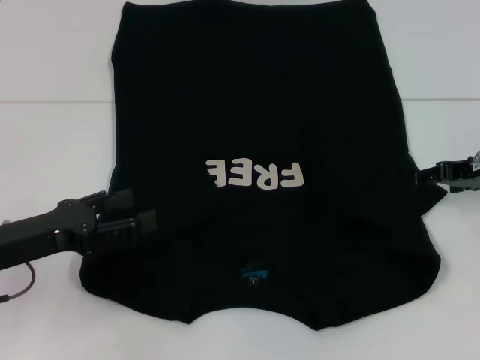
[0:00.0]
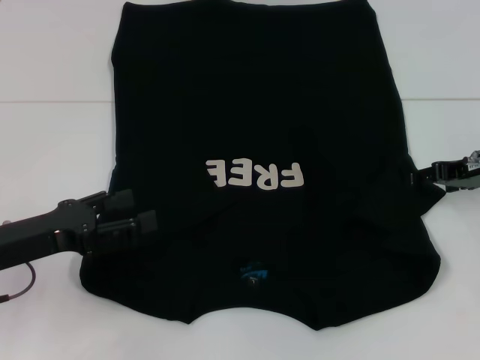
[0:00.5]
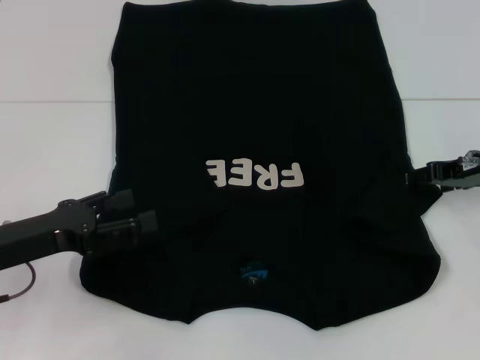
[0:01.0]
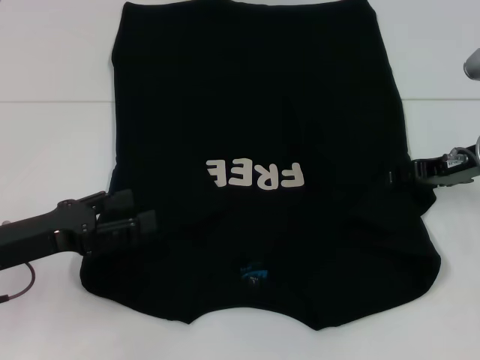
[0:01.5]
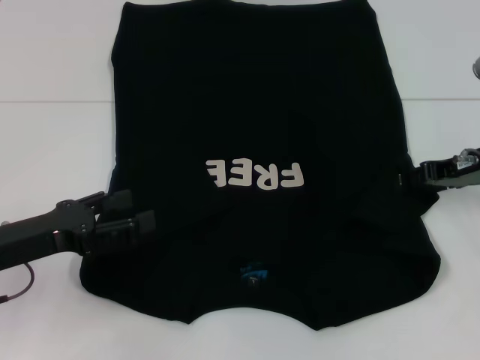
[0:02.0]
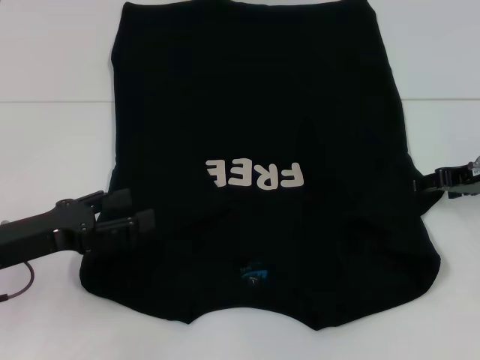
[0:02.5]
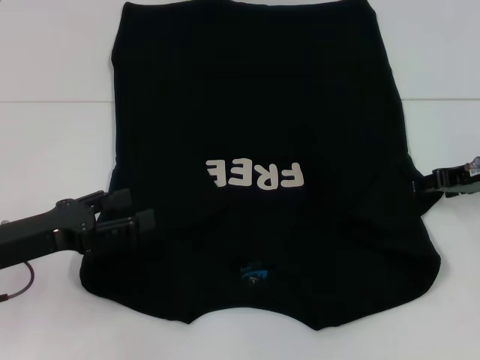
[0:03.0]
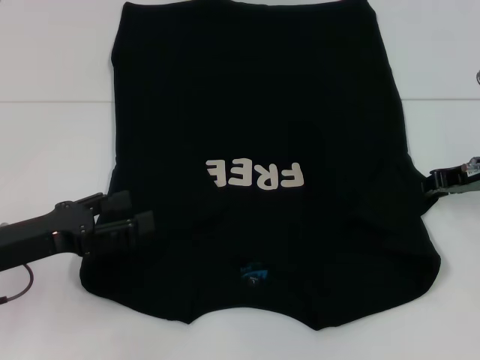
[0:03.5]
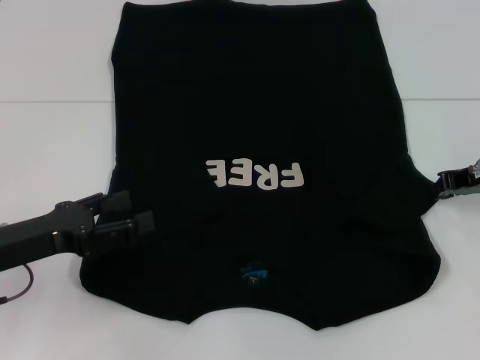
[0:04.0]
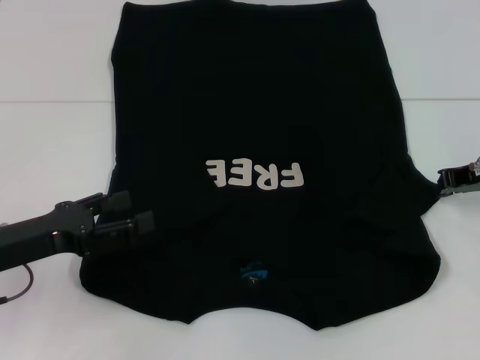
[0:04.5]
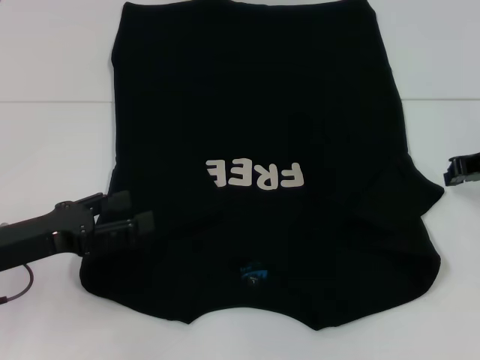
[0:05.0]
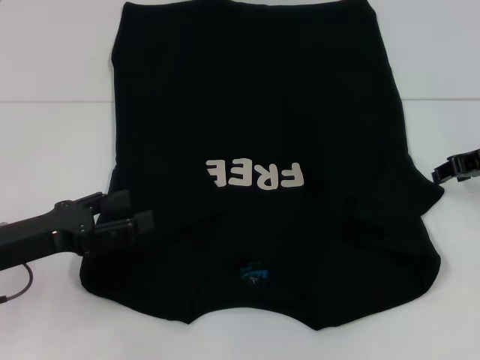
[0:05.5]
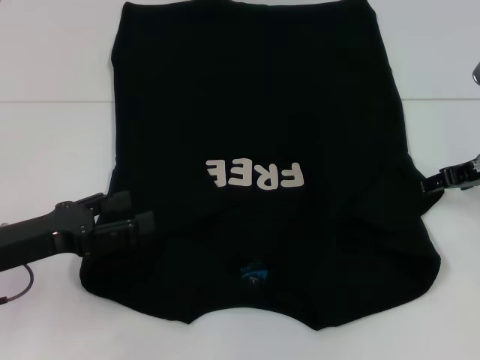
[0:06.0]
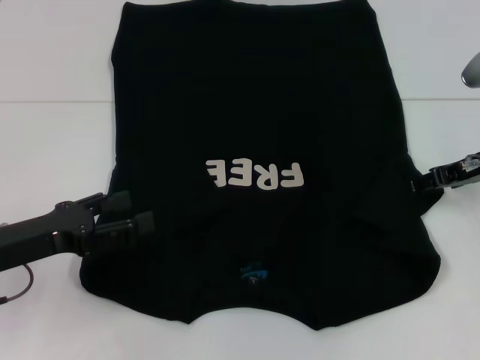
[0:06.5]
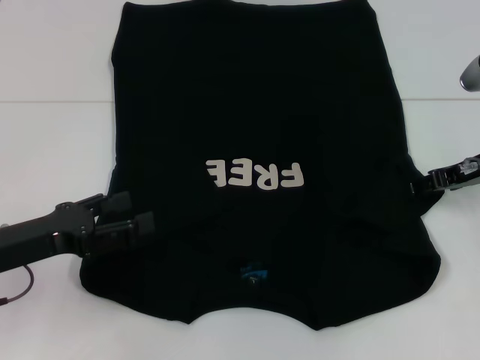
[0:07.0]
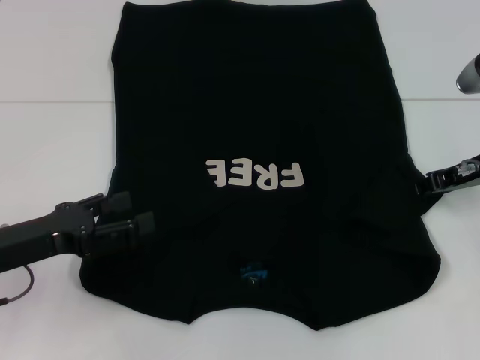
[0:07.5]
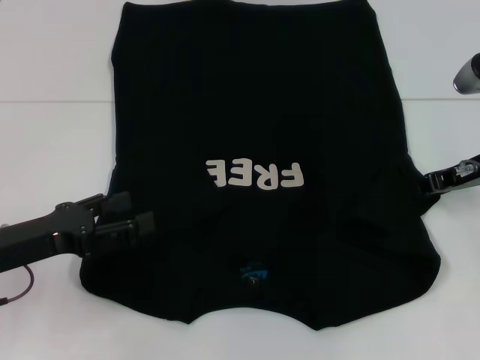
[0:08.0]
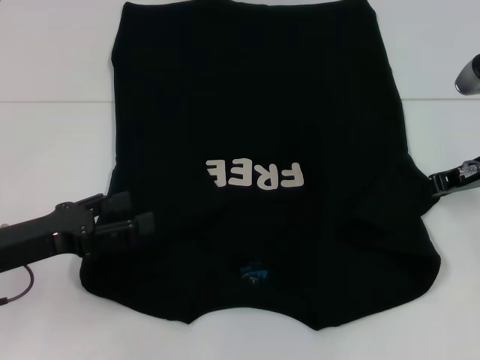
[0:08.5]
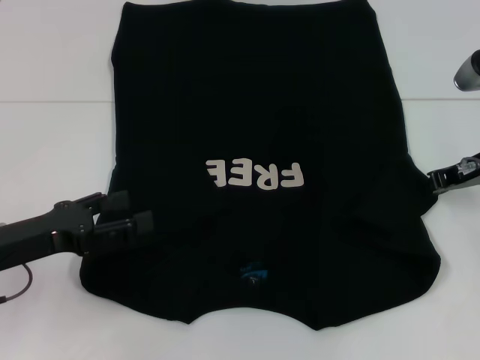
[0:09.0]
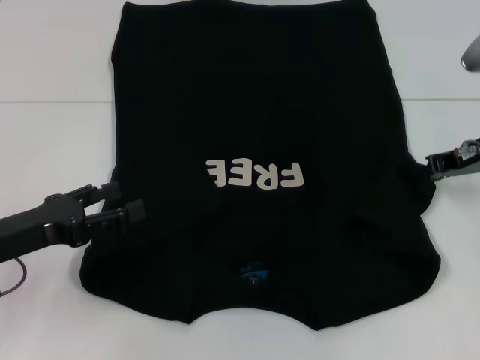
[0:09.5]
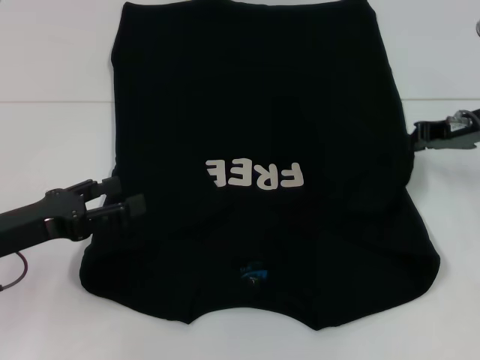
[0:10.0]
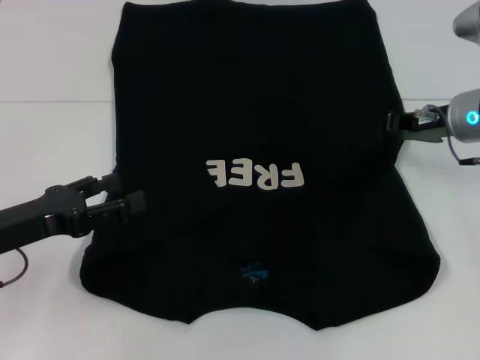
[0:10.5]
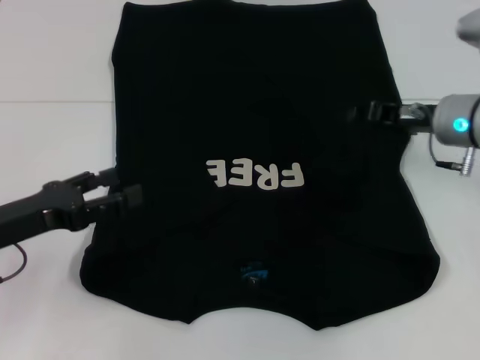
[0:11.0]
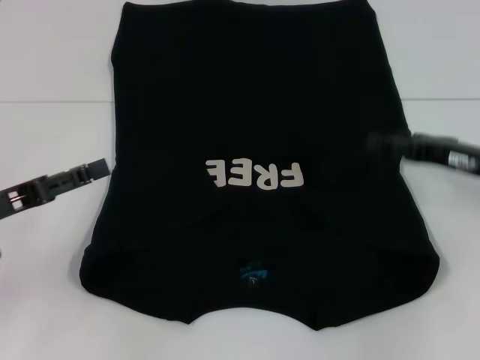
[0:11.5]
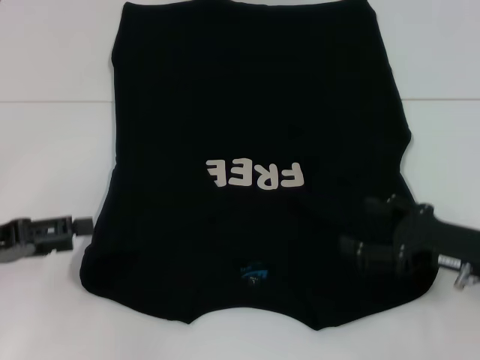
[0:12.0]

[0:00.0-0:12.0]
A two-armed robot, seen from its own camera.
Step, 0:00.0 to 0:12.0: Fold the bottom right sleeve with your right hand.
0:00.0 to 0:02.0: The grippers stay close to where they were, moving slightly.
0:02.0 to 0:04.0: The right gripper closes.
0:04.0 to 0:06.0: The right gripper opens.
0:06.0 to 0:08.0: The right gripper closes up.
0:08.0 to 0:10.0: The right gripper closes up.
0:10.0 to 0:12.0: The right gripper heads backward and downward, covering approximately 15 cm, and opens up, while the left gripper is displaced to the left by about 5 cm.

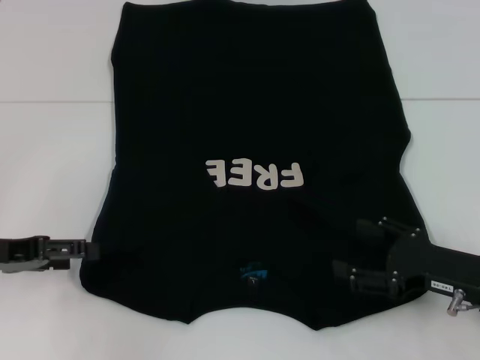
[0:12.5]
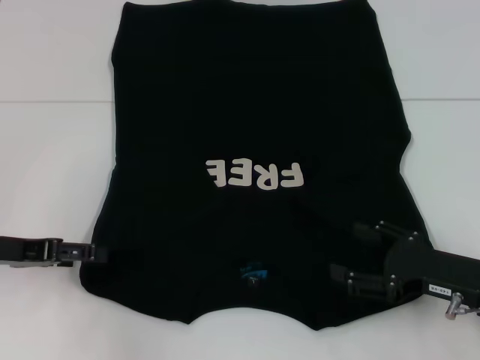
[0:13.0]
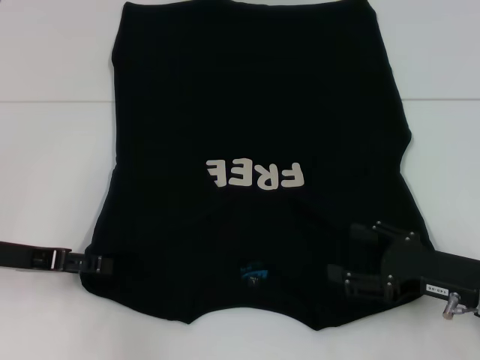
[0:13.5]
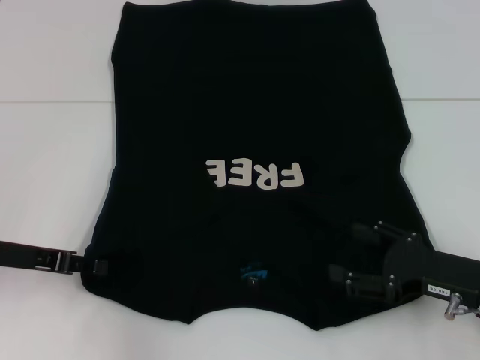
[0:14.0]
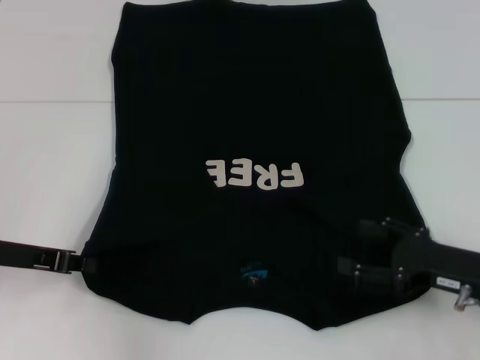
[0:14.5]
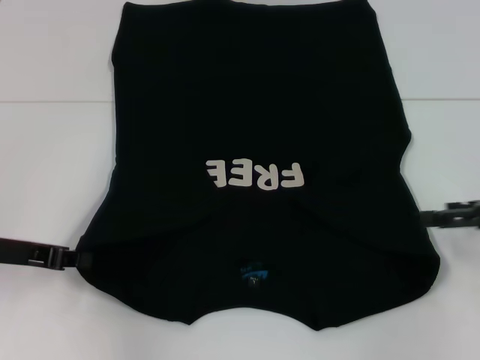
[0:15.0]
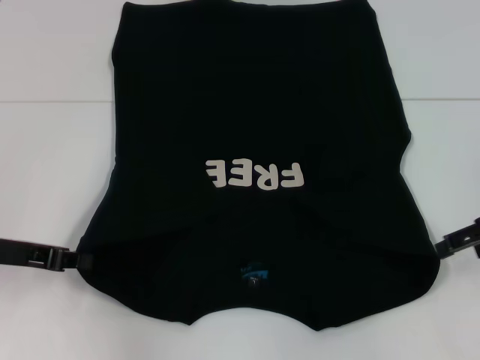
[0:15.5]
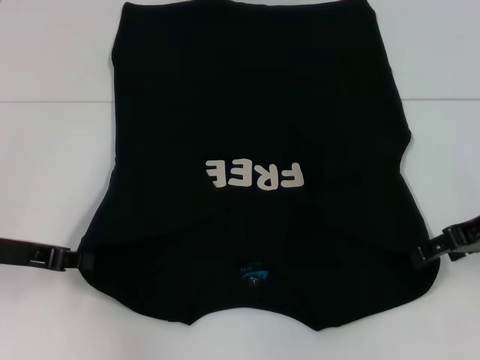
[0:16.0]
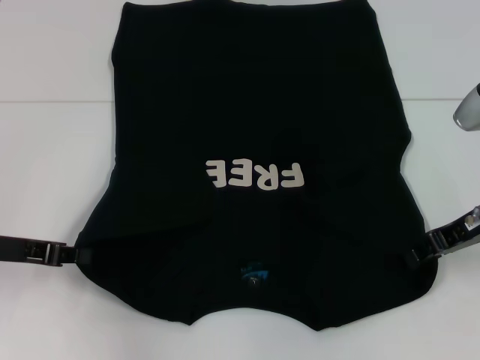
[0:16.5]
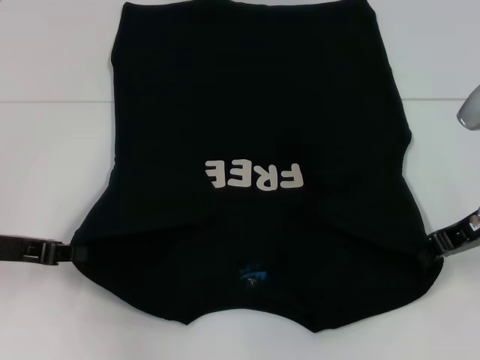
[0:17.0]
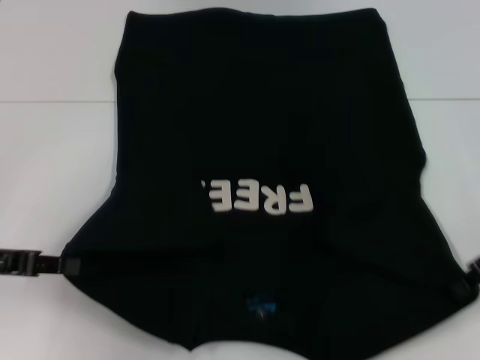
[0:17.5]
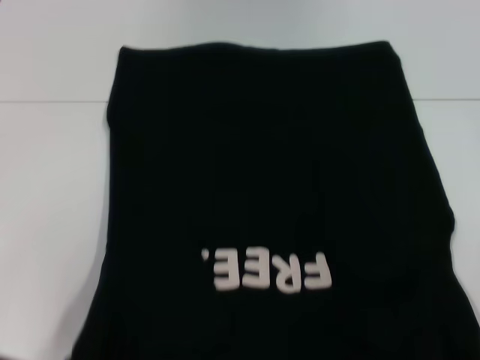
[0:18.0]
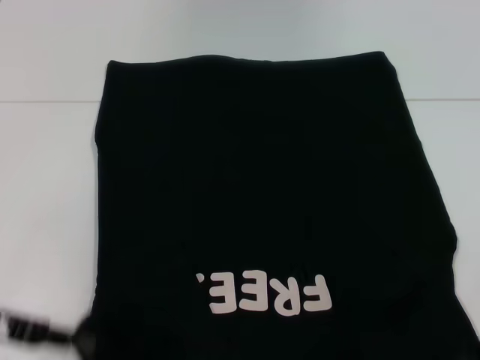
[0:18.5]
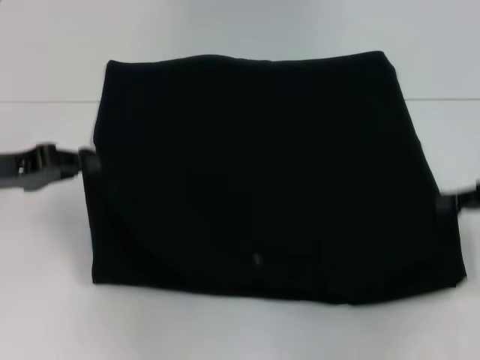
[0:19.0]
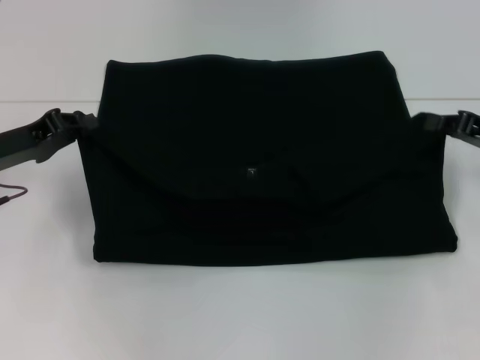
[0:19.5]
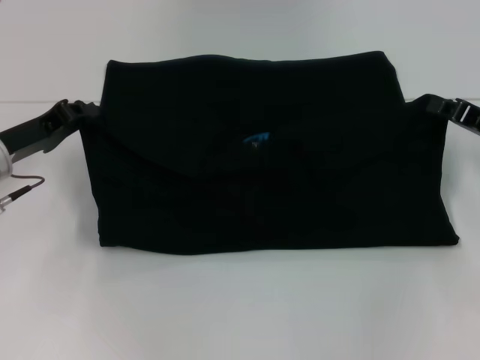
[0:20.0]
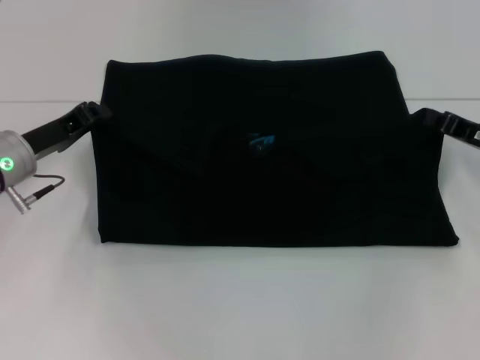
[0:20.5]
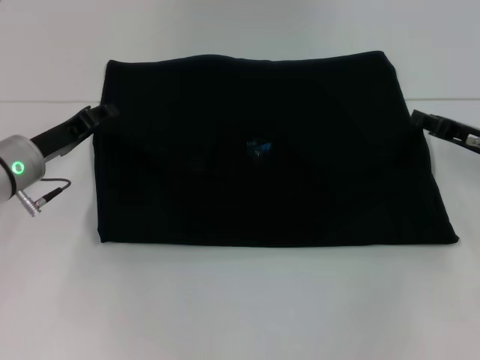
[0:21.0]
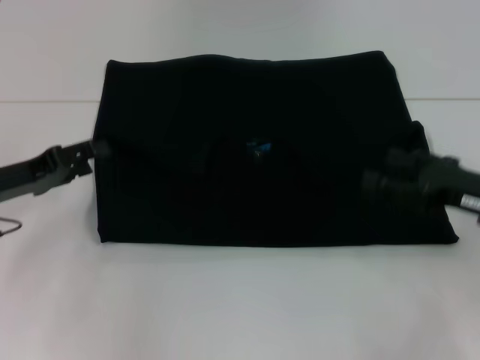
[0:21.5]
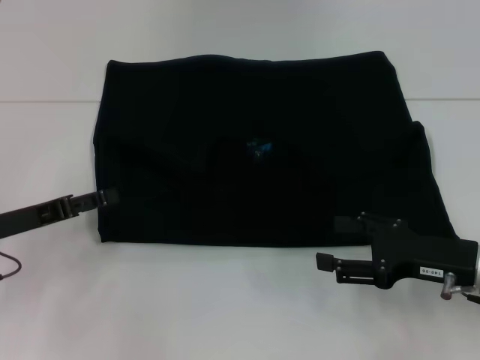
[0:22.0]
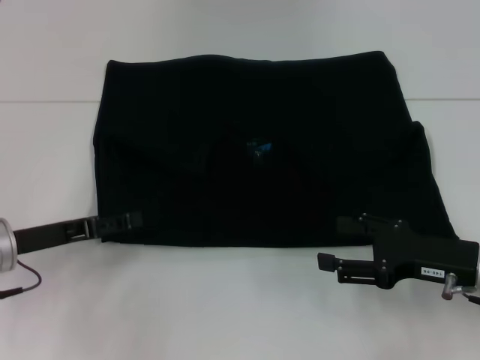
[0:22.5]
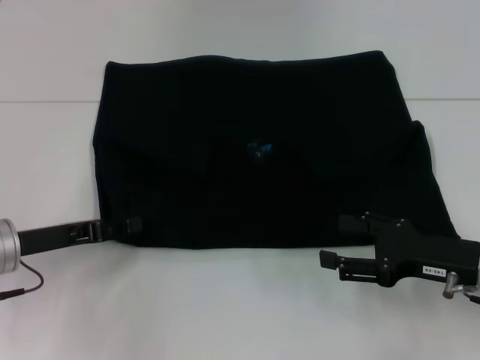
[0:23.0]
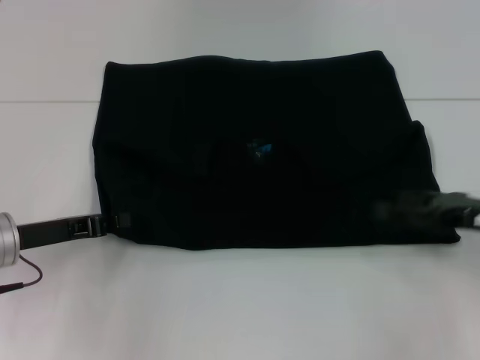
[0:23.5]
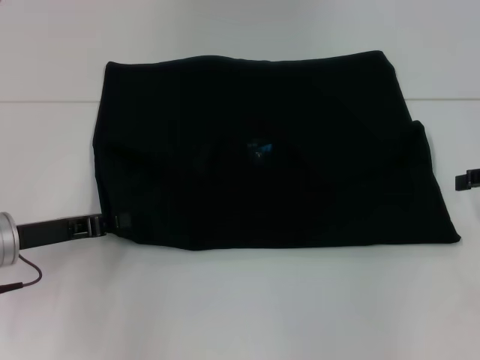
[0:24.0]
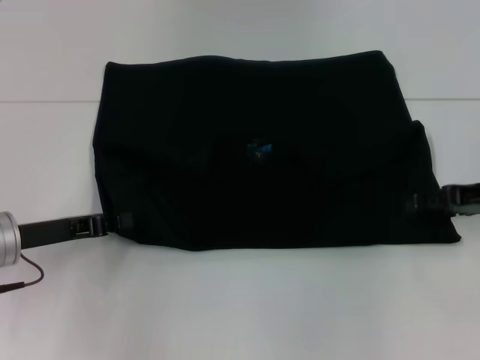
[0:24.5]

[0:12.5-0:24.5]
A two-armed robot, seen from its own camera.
Step, 0:12.5 to 0:15.5: Grab the bottom left corner with your left hand.
Step, 0:16.0 to 0:17.0: Grab the bottom right corner with your right hand.
Step, 0:17.5 to 0:21.0: Fold the clothes with your left hand.
Step, 0:17.5 to 0:21.0: Fold the clothes with your right hand.
0:12.5 to 0:14.5: The left gripper closes.
0:14.5 to 0:16.5: The right gripper is displaced forward and upward by some 10 cm, and closes.
0:16.5 to 0:18.5: The two grippers go approximately 5 cm backward. The right gripper closes its fingers.
0:18.5 to 0:20.5: Both grippers travel together forward, roughly 10 cm.
0:20.5 to 0:22.5: The grippers both shift backward by about 10 cm. The right gripper opens its fingers, while the left gripper opens its fingers.
0:22.5 to 0:24.5: The left gripper closes up, while the right gripper shifts approximately 10 cm forward, to the right and upward.

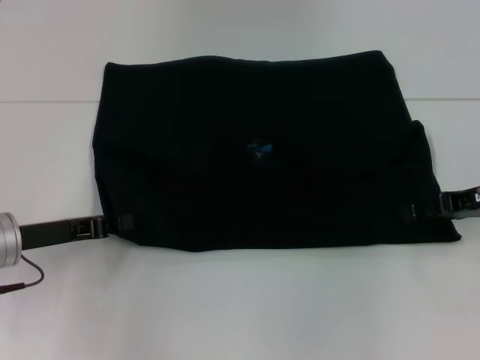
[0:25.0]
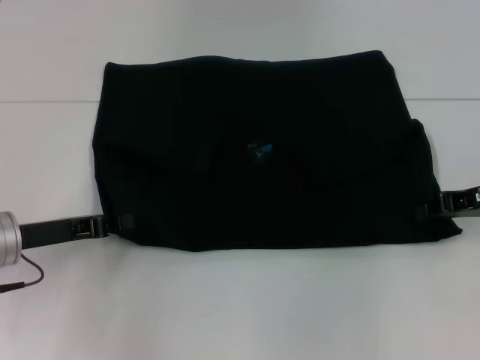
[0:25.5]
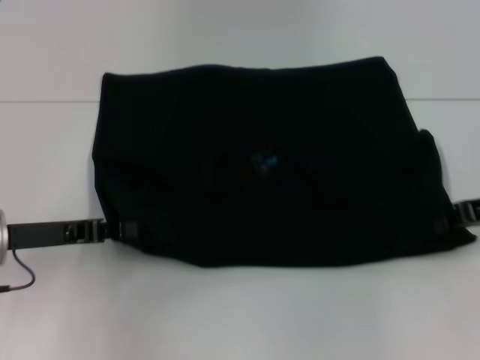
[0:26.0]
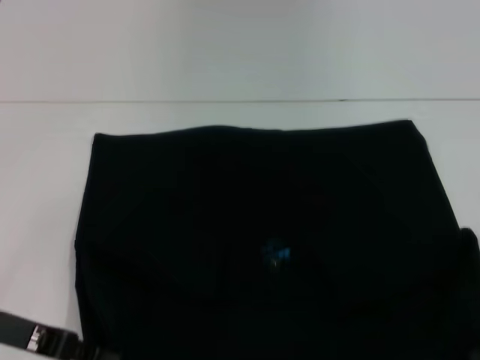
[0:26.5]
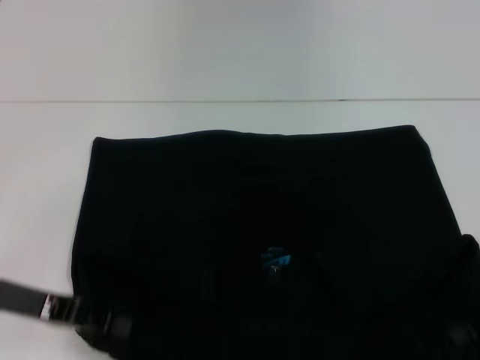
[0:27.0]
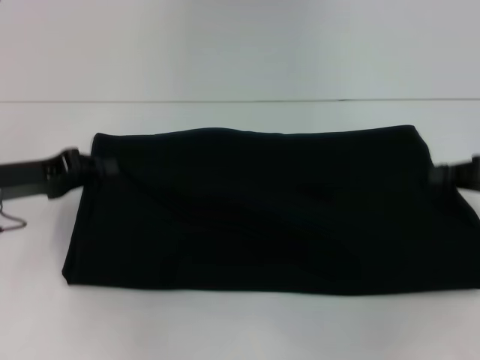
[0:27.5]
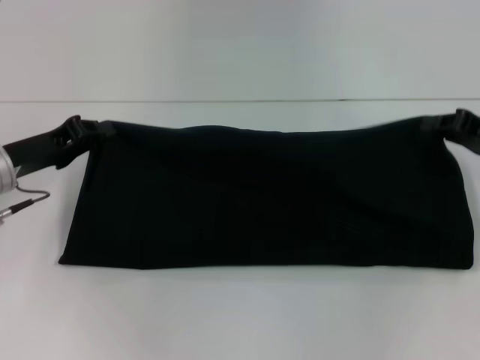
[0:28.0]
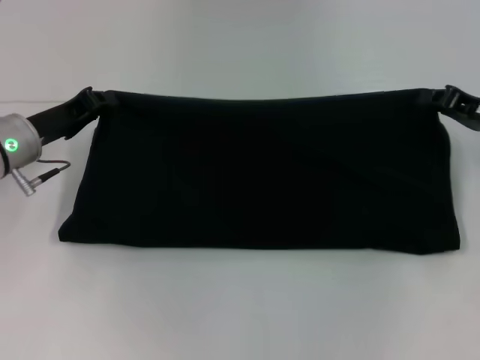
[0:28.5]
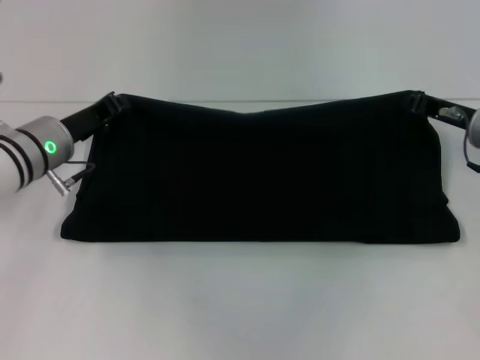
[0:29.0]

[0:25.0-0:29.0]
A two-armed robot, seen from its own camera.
0:25.0 to 0:27.0: The right gripper shifts approximately 10 cm backward, and closes; the left gripper shifts by approximately 5 cm.
0:27.0 to 0:29.0: The right gripper heads forward and to the left, covering about 15 cm. The left gripper travels forward and to the right by approximately 15 cm.
